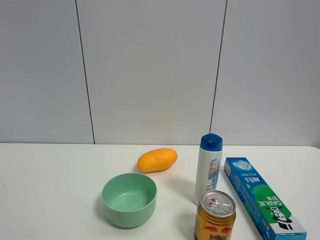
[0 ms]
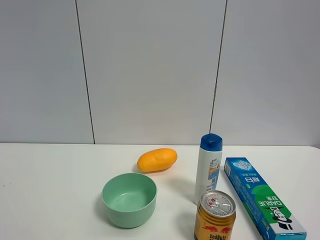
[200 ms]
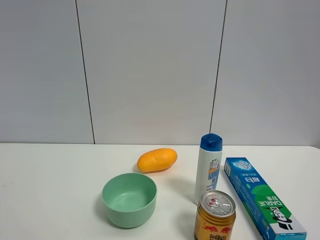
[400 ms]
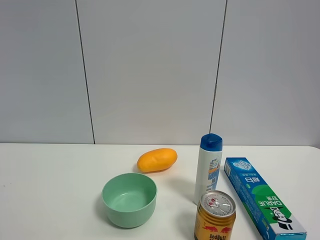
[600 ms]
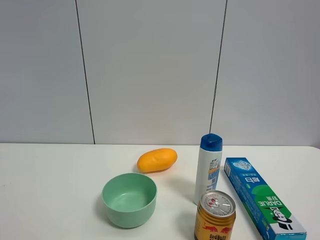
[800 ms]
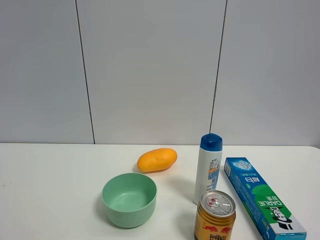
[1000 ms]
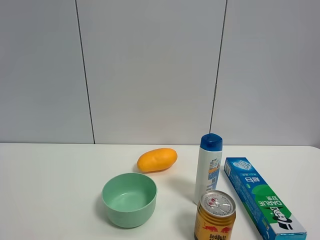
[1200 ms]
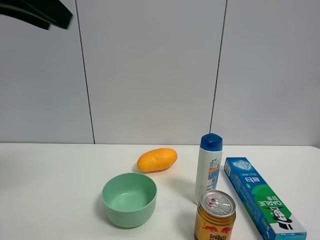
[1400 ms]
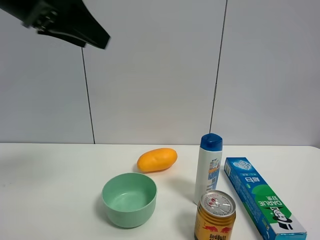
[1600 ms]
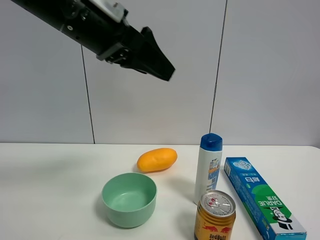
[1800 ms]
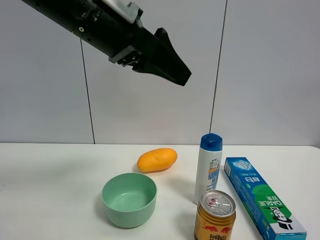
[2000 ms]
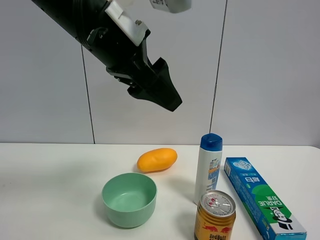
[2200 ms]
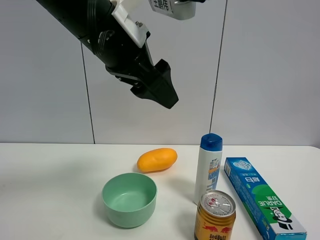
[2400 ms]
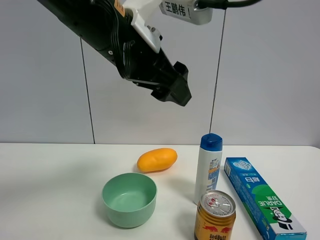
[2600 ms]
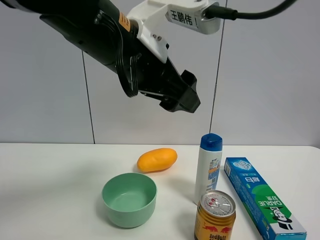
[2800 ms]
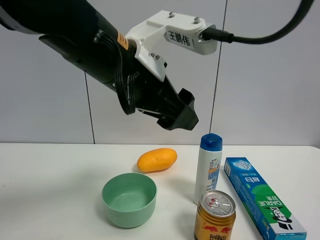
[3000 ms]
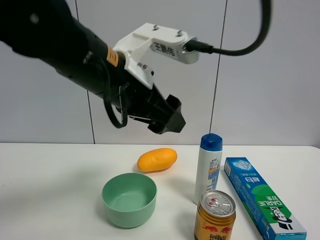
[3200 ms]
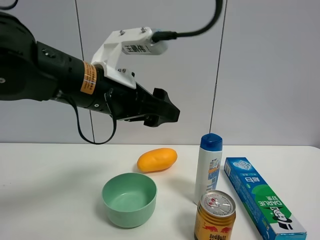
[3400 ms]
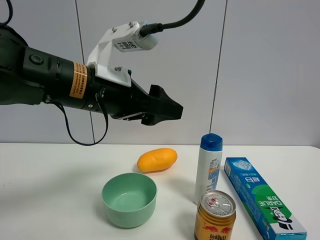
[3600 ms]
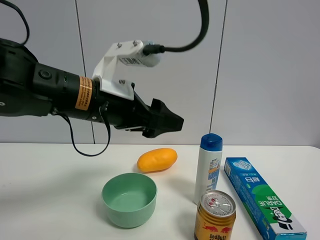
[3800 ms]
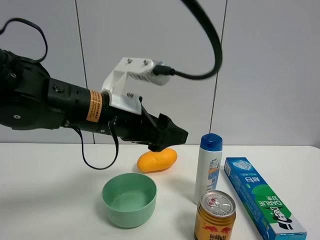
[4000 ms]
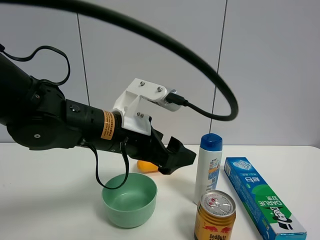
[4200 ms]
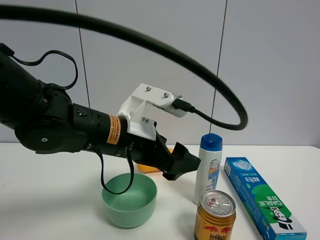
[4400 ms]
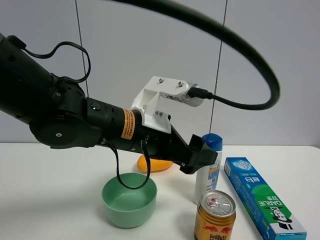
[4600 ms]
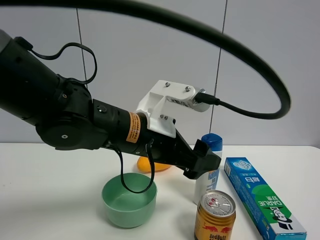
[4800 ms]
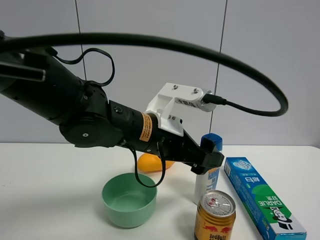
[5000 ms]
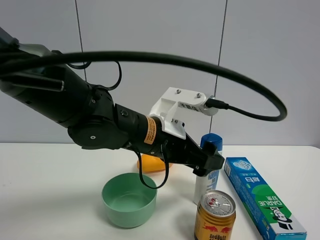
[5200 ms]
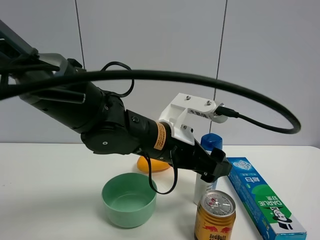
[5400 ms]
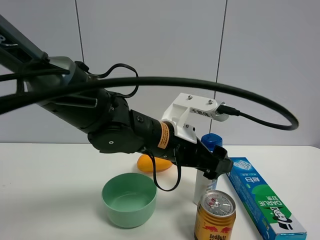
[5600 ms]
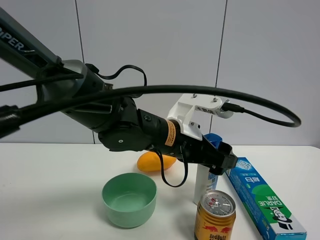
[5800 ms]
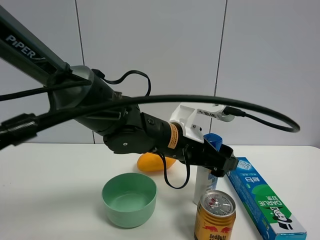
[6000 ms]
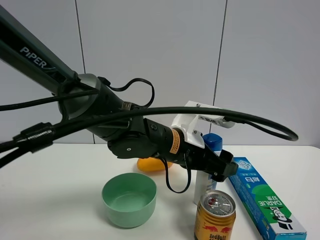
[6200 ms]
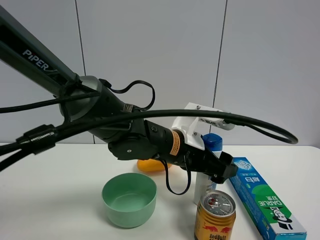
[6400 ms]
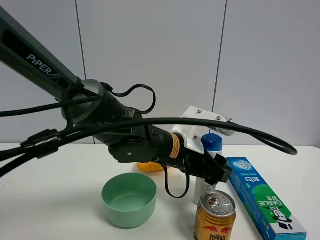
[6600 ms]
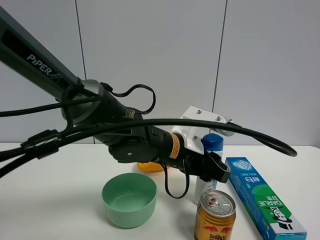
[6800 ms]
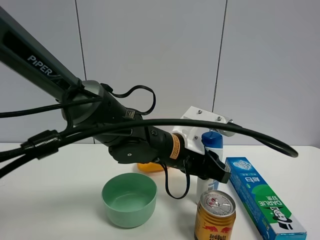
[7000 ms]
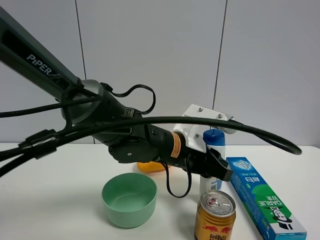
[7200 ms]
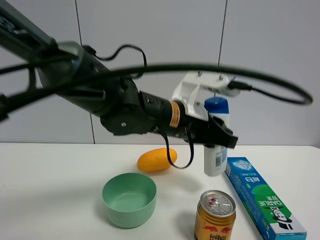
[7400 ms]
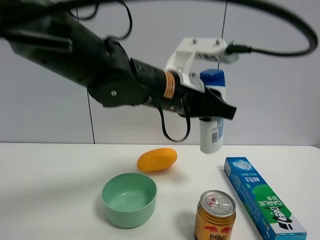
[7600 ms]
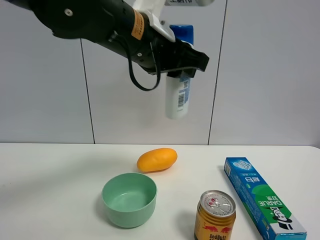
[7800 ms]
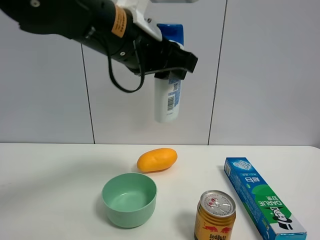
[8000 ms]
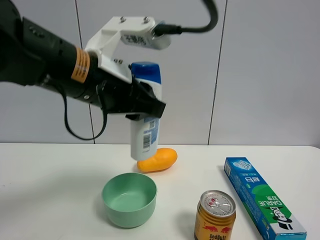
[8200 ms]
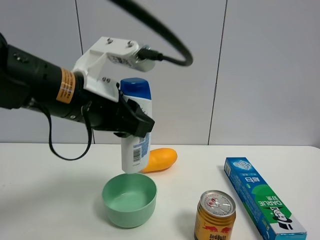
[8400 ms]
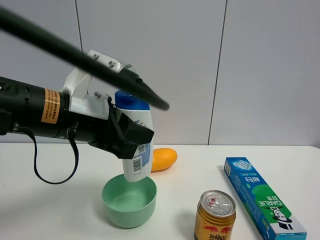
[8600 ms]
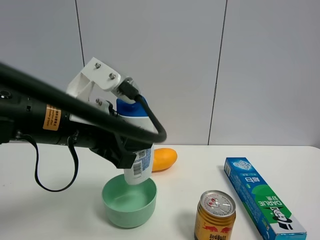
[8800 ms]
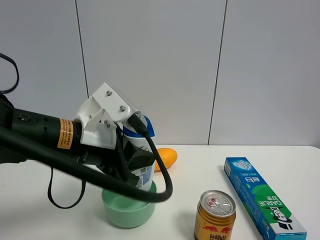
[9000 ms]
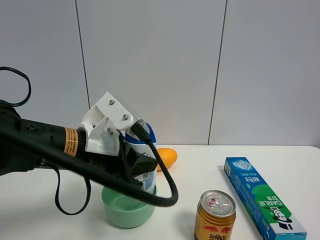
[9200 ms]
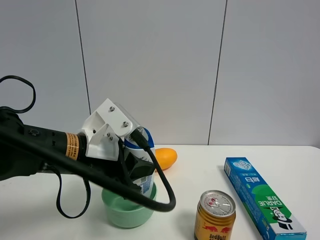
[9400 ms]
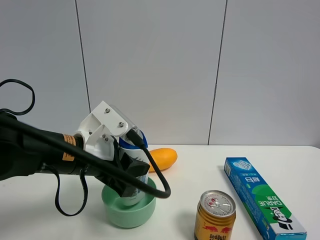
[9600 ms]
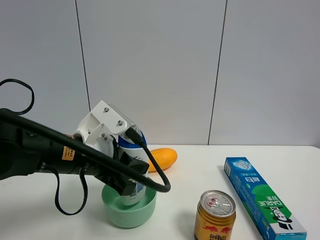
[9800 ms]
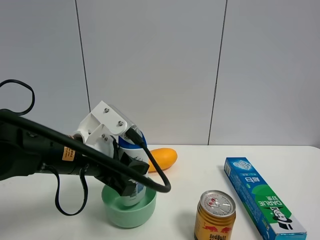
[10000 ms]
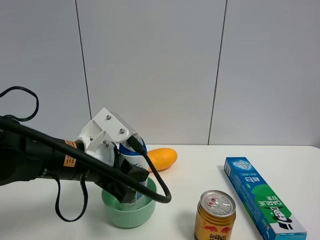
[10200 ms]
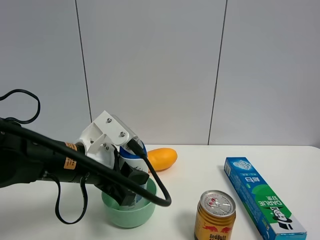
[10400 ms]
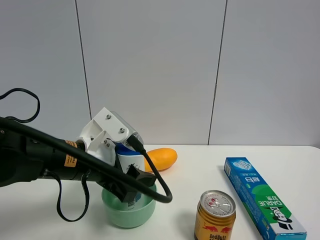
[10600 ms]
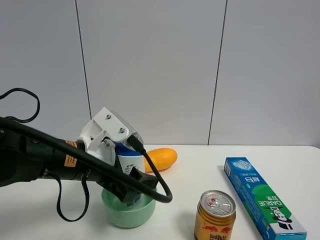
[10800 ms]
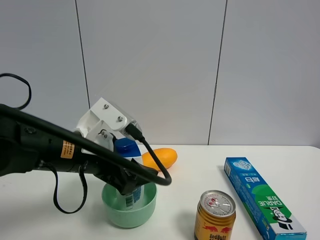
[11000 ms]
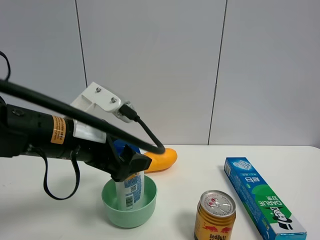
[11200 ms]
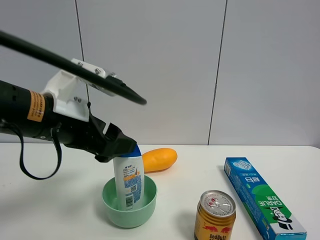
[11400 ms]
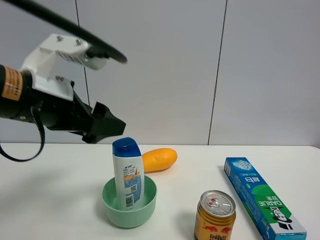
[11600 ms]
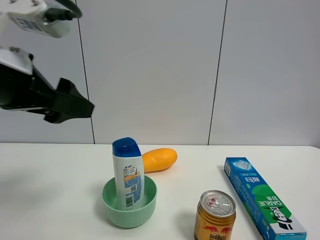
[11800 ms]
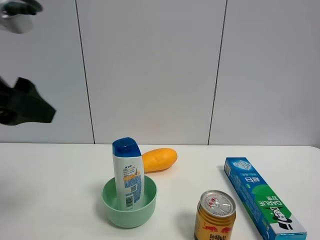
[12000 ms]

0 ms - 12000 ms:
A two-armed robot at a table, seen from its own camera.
Task of the whole recording: the gripper move the object.
Step, 0 ms - 6800 ms: Grasp the shampoo with the left gripper.
Step, 7000 ms - 11000 ms: Place the shampoo into the green bowl with the left gripper.
0 ms - 1600 ms: The left gripper shifts roughly 30 cm forward and to the right.
1600 ms - 3000 ms: The left gripper heads to the right and downward, covering some 15 cm.
3000 ms - 4400 ms: The left gripper shifts about 10 cm downward.
4400 ms - 6000 ms: The left gripper goes some 10 cm to the right.
6000 ms - 7600 ms: The left gripper shifts some 10 cm upward, and closes up.
7600 ms - 9000 ms: The left gripper goes roughly 15 cm to the left, downward and backward.
9000 ms - 10400 ms: The grippers make only small movements.
10400 ms - 12000 ms: The left gripper travels upward, to the left and backward by about 20 cm, and opens.

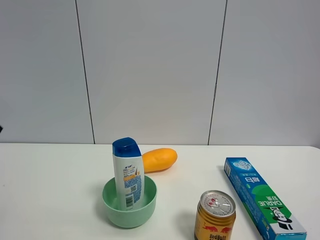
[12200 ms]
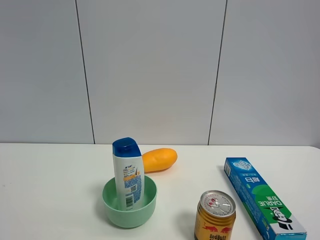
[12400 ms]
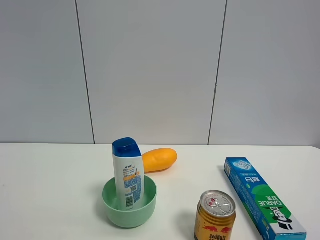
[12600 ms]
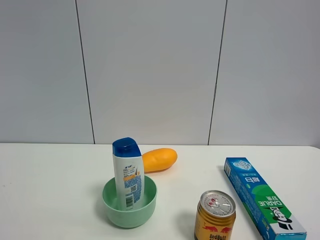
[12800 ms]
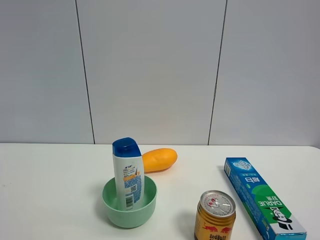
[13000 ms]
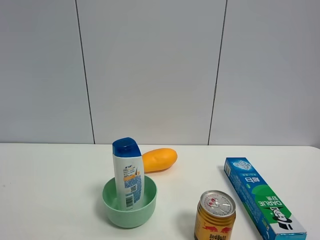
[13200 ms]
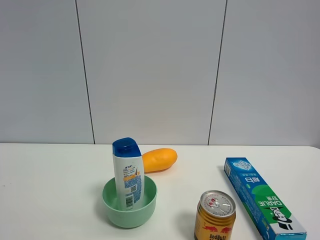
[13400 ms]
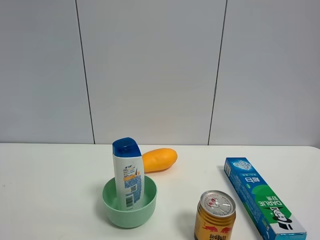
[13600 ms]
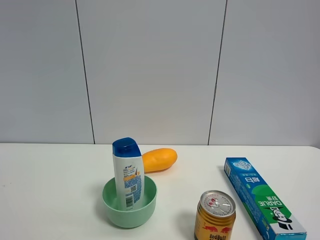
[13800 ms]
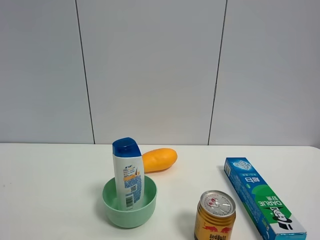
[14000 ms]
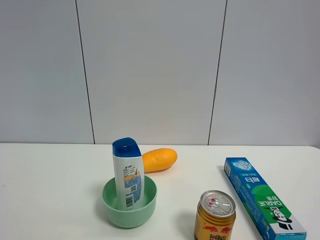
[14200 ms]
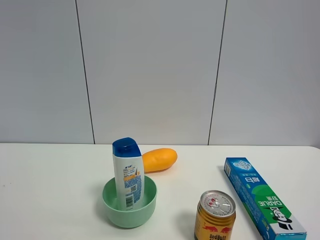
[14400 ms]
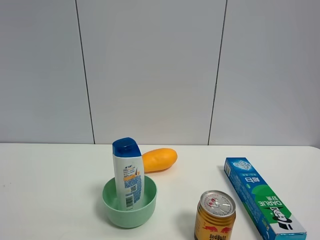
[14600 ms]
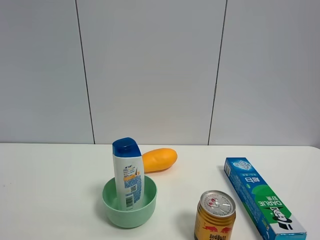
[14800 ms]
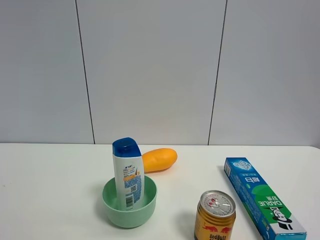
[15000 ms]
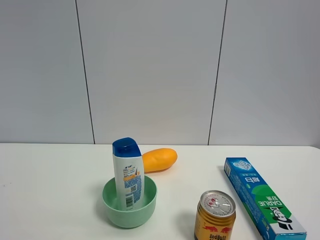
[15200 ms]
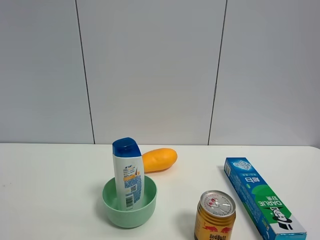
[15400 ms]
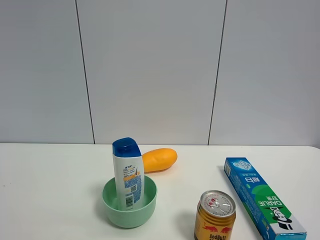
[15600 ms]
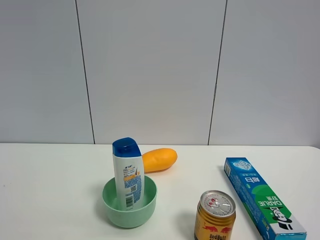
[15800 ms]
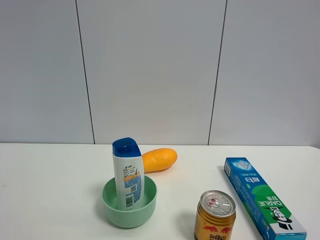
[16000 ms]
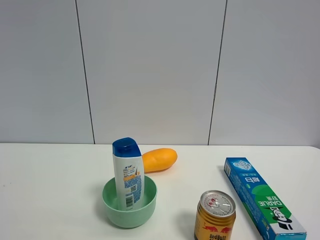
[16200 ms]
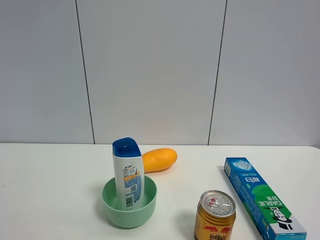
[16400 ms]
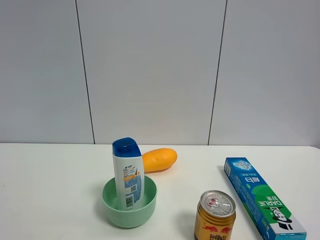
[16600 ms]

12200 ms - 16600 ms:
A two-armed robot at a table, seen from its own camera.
Task of the whole recording: the gripper move the object.
15200 ms - 16600 ms: Both grippers stay put.

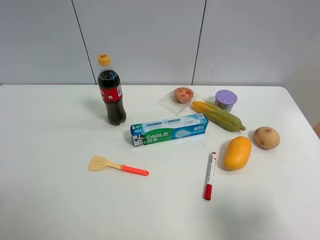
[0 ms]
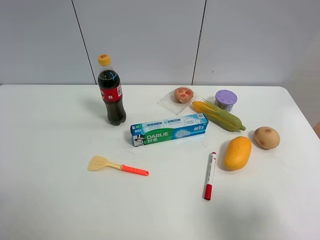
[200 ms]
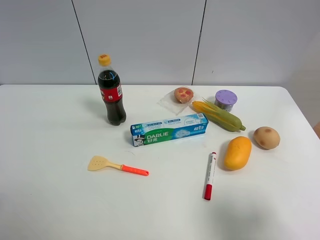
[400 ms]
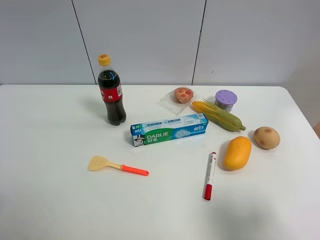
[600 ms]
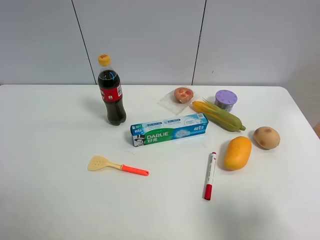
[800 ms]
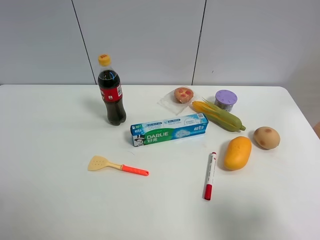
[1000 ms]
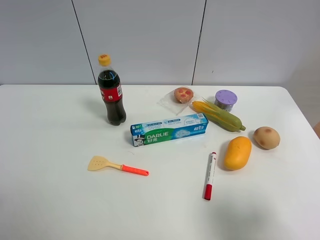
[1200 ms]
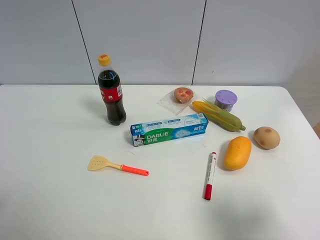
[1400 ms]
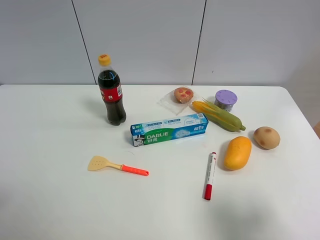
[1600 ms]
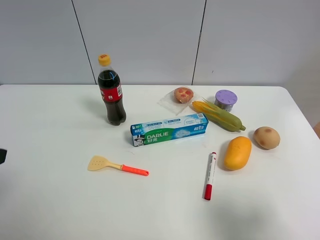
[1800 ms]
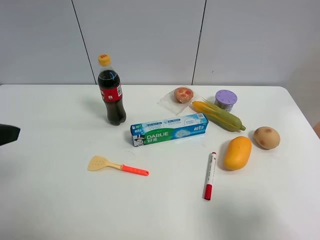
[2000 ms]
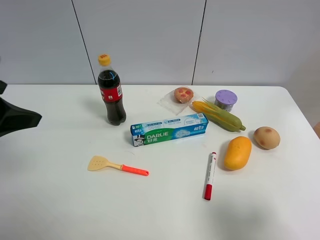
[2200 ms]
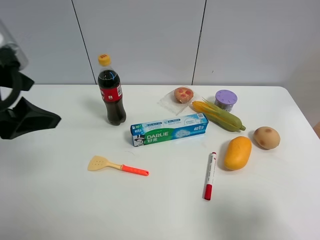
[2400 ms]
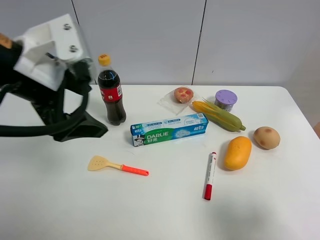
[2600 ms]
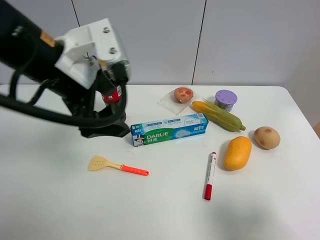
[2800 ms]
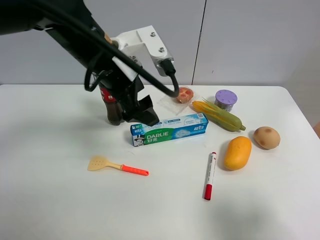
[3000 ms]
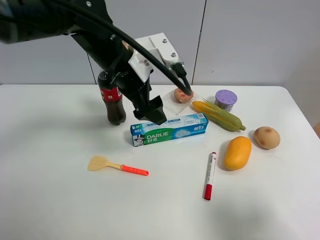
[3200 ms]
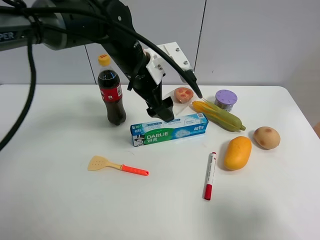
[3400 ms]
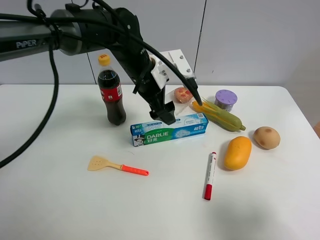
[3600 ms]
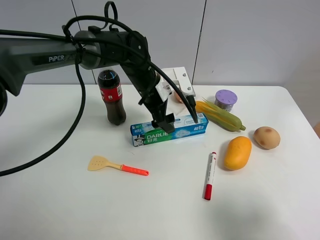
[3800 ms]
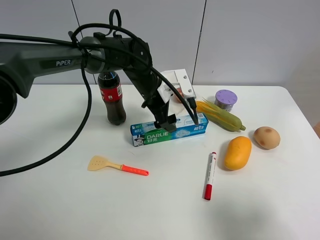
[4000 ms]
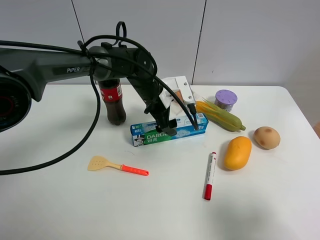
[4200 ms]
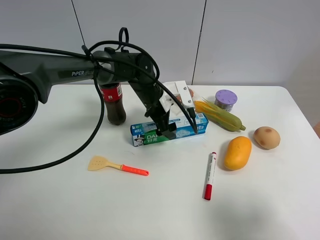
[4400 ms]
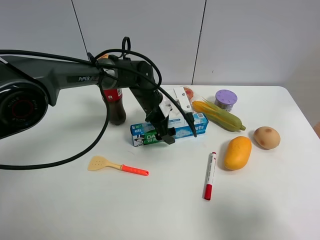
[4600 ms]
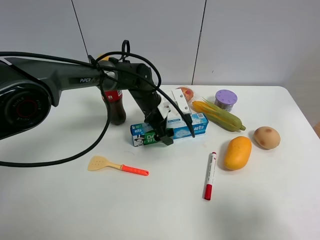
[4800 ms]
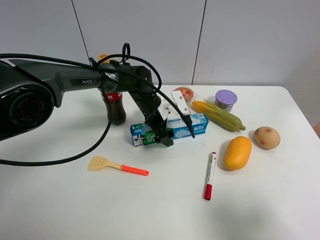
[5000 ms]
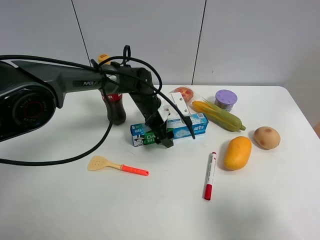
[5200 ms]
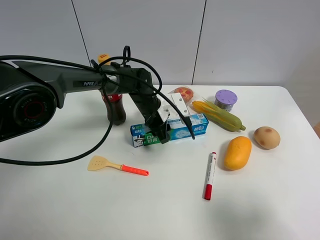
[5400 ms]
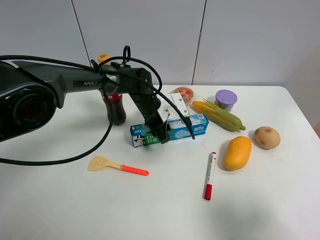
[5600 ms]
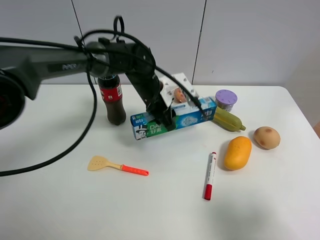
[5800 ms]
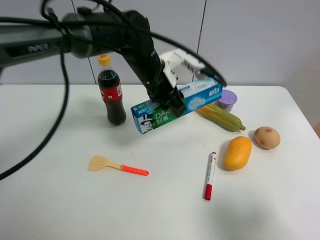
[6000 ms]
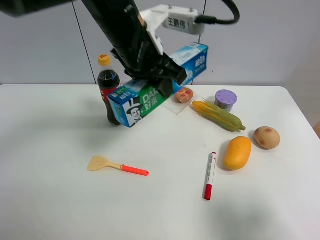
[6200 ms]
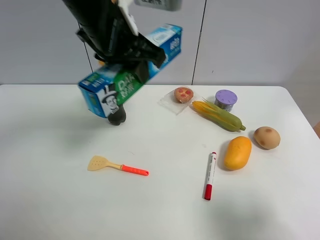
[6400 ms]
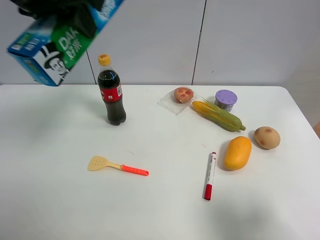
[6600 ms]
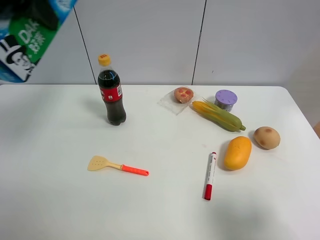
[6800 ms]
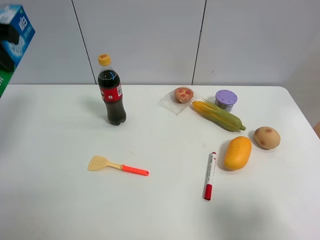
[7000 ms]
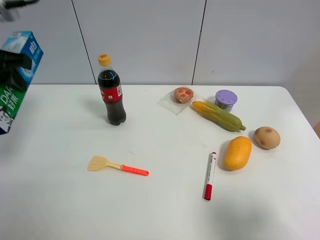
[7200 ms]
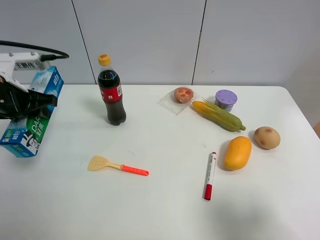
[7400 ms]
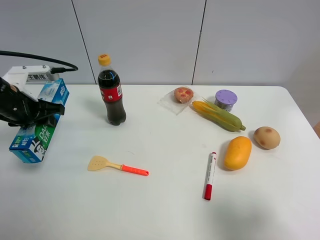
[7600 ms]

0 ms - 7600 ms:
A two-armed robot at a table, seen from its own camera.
Task of the whole recording: the gripper move the object.
Step, 0 ms - 5400 ms: Grasp the toothpaste with the left gripper.
1600 ms - 3000 ms: The left gripper heads forward and to the right, covering about 35 cm.
3000 ms - 4600 ms: The left gripper shifts about 20 cm downward and forward.
4600 ms - 6000 ms: The left gripper travels upward by roughly 15 cm, and closes up.
6000 ms - 7600 ms: The left gripper travels to the left by approximately 30 cm.
